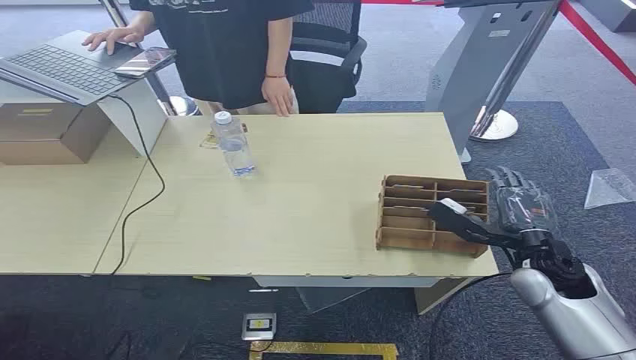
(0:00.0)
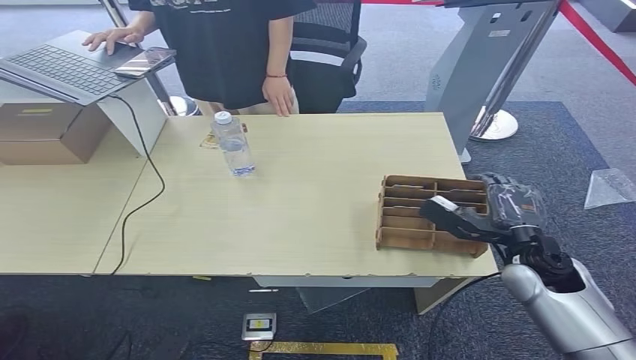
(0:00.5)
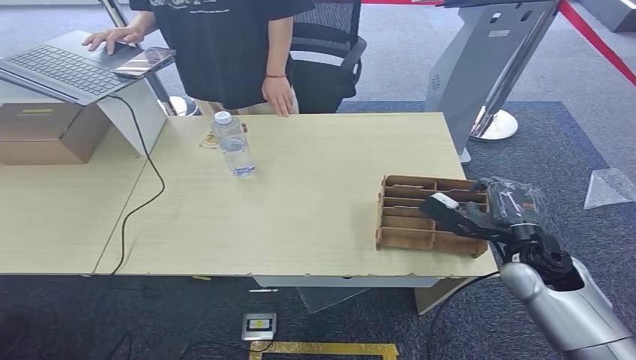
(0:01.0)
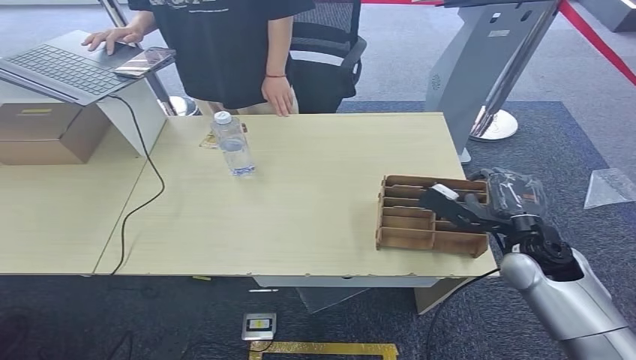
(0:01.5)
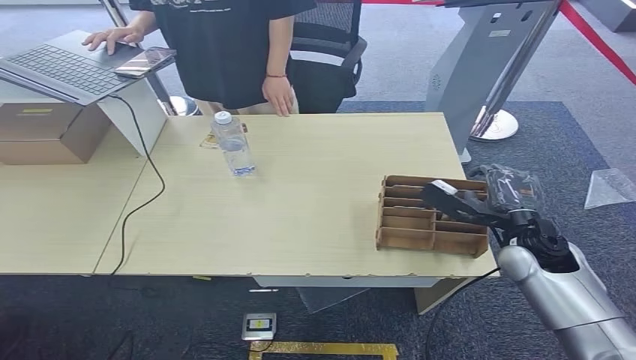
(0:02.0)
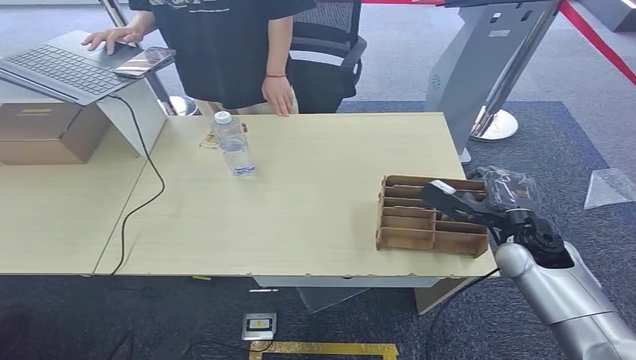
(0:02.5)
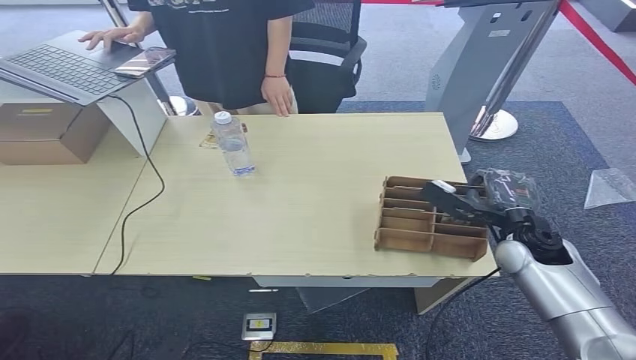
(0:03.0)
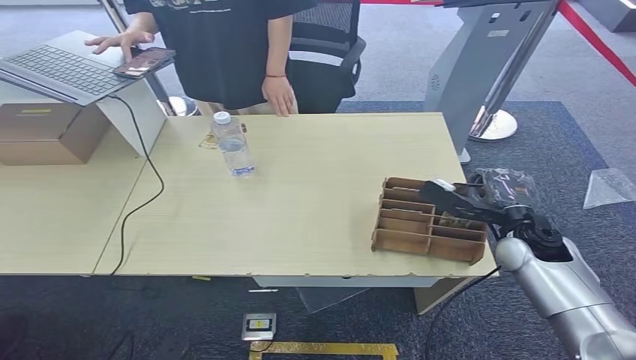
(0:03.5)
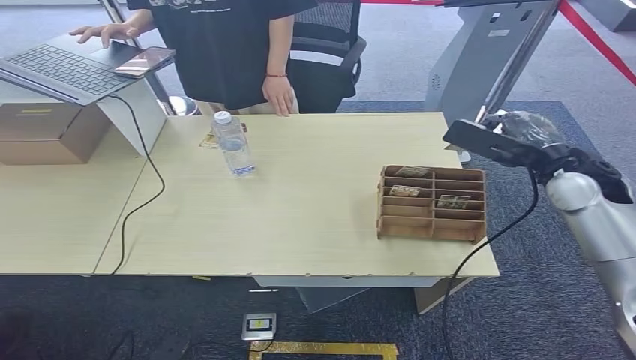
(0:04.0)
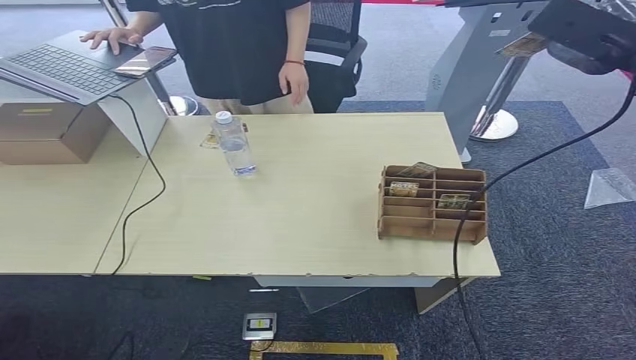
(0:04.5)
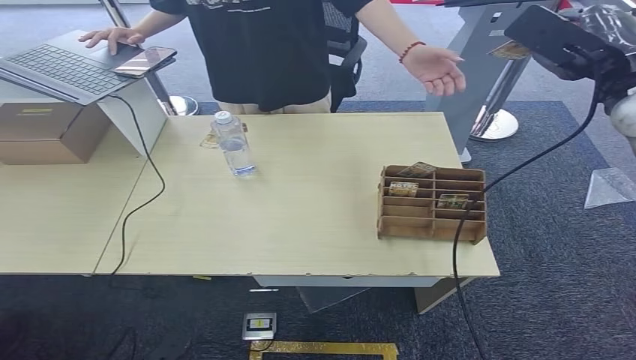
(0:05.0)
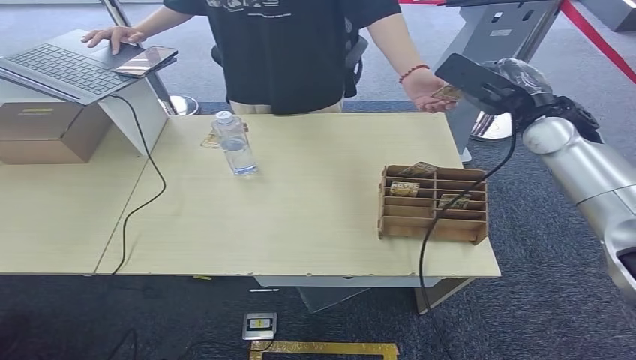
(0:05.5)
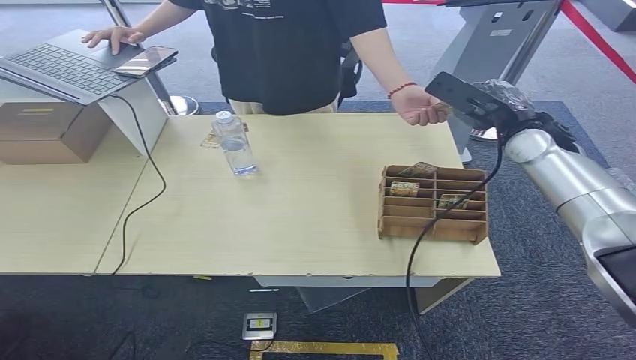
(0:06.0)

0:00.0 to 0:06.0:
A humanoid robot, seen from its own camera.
Step, 0:00.0 to 0:04.0: Pick up the key card from the card box.
Step, 0:04.5 to 0:06.0: Hand the key card to the target.
0:02.0 to 0:04.0: The right hand moves upward and forward, some 15 cm.
0:04.0 to 0:06.0: The right hand travels forward by approximately 5 cm, and moves roughly 15 cm upward and comes back.
